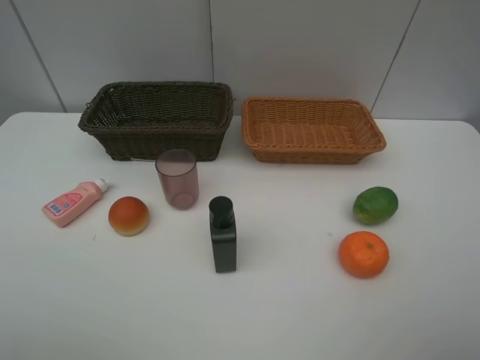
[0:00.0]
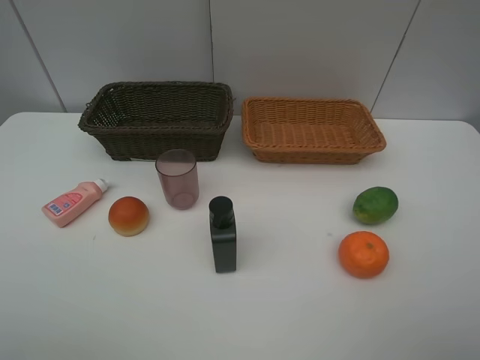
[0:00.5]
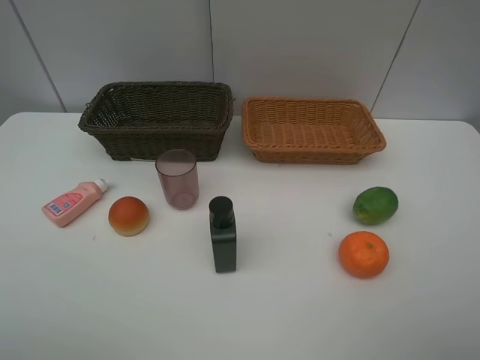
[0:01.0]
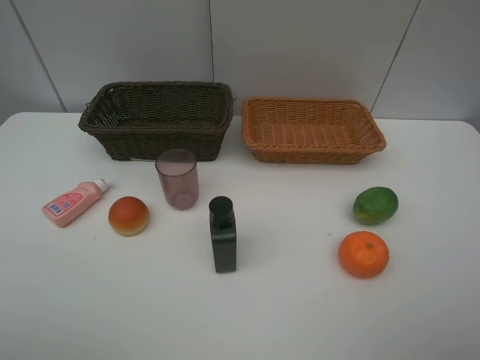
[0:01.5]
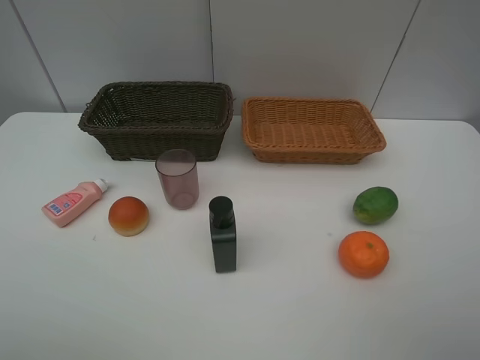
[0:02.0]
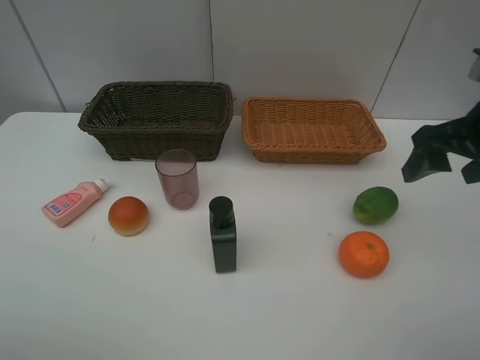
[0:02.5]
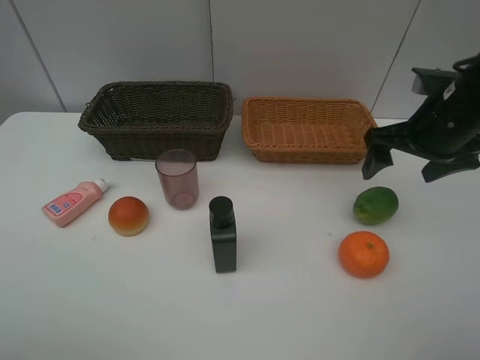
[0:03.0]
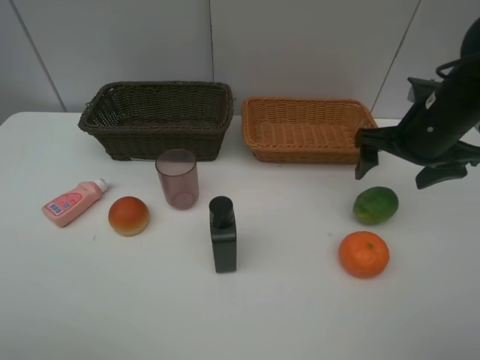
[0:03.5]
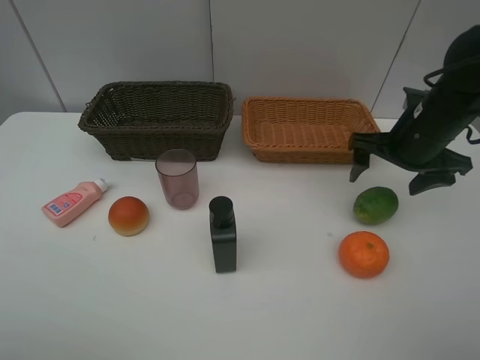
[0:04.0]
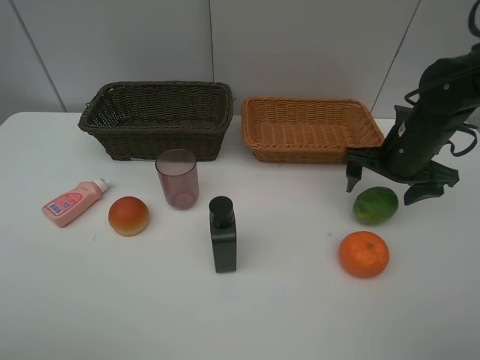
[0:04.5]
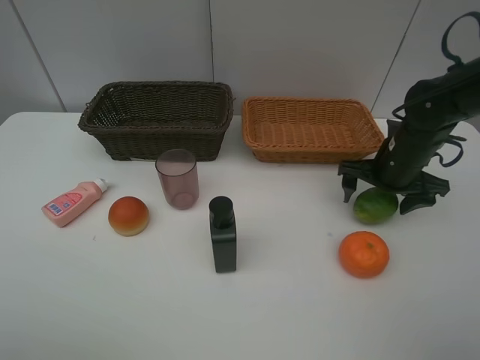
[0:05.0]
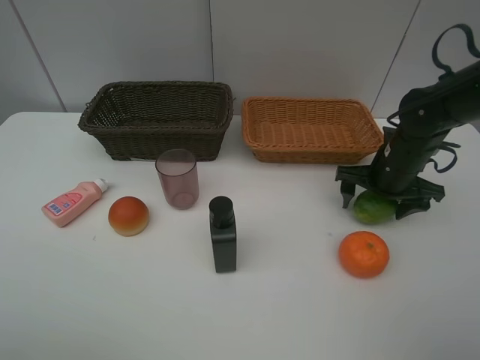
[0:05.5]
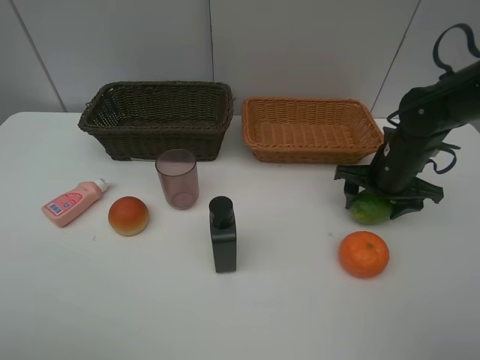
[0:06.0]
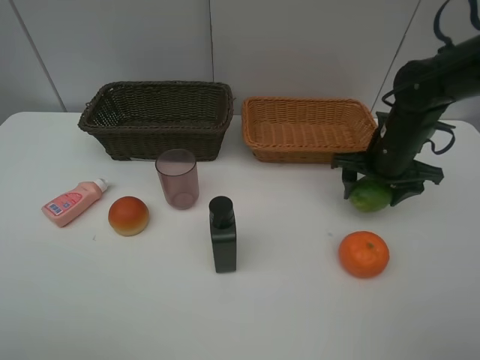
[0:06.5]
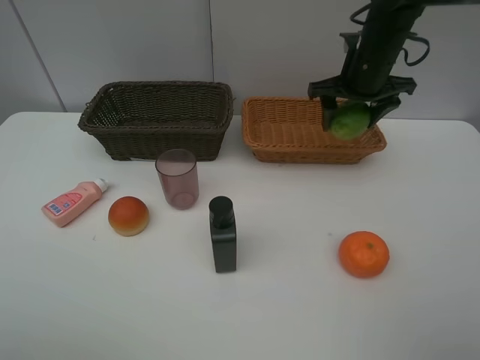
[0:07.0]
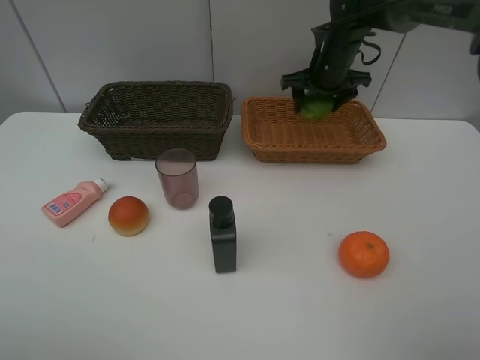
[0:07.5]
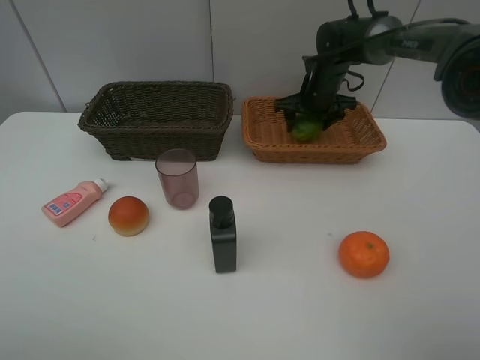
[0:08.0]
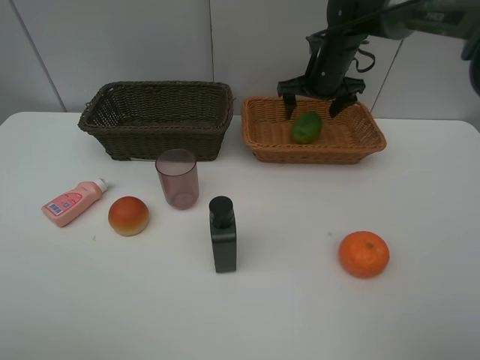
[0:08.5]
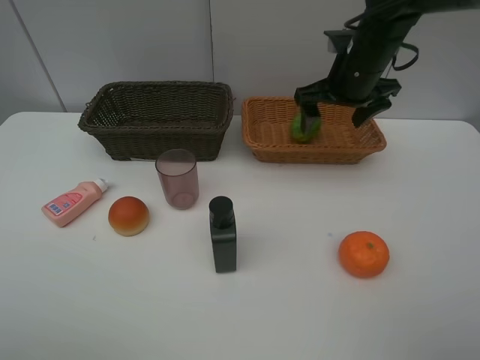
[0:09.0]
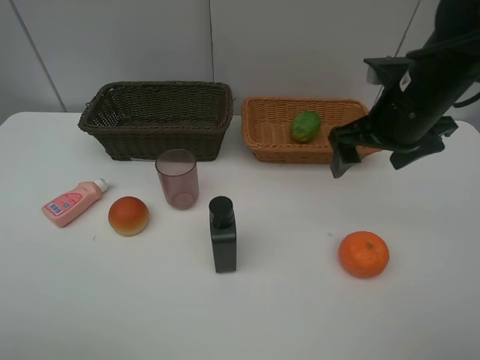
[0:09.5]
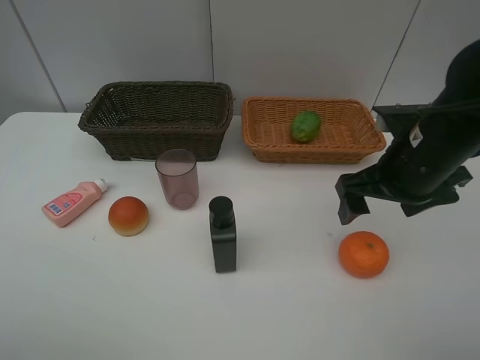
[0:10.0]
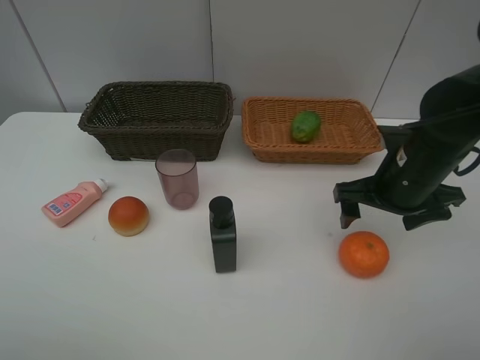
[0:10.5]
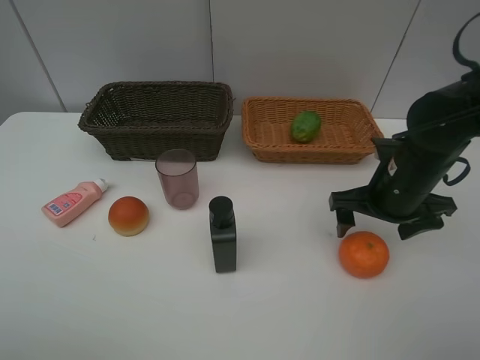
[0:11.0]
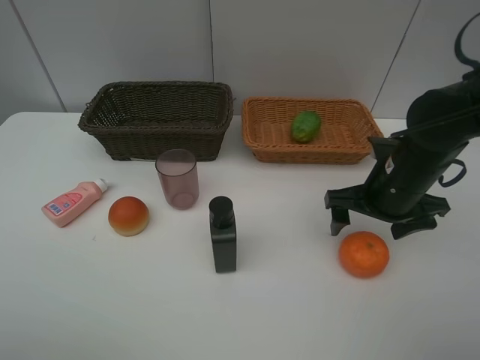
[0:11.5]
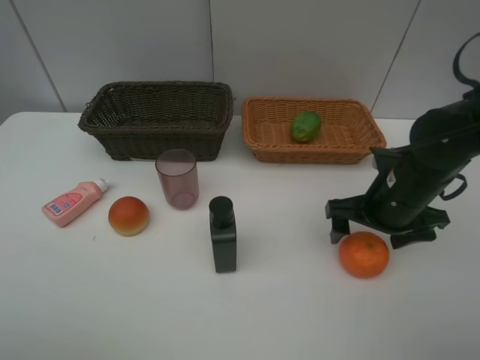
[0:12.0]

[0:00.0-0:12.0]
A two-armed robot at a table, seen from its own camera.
Task of the whole recording: place multiple objects separately in different baskets.
0:02.0 to 0:04.0: The right gripper goes some 25 cm forward and downward.
0:04.0 to 0:06.0: The right gripper shifts approximately 5 cm downward, and closes.
0:06.0 to 0:08.0: The right gripper goes approximately 20 cm forward and to the left.
0:08.0 to 0:10.0: The right gripper moves backward, some 25 cm, and opens its fingers.
0:10.0 to 0:12.0: The right gripper heads downward, covering about 5 cm.

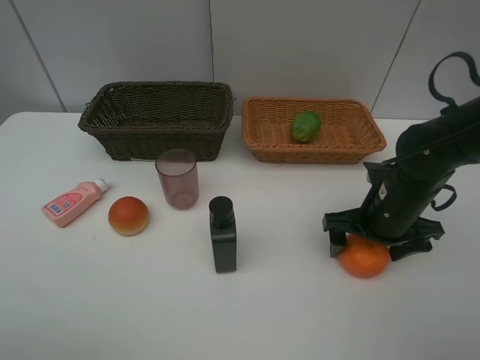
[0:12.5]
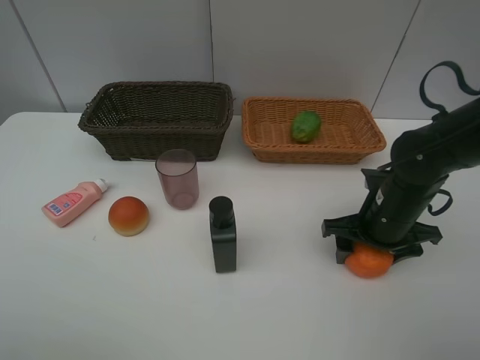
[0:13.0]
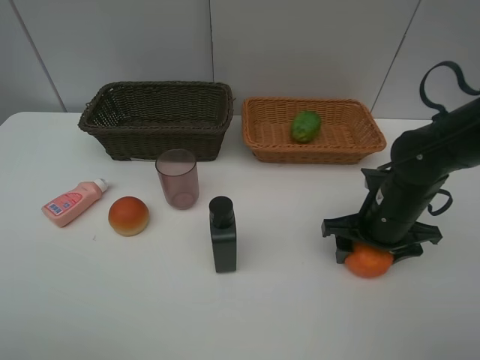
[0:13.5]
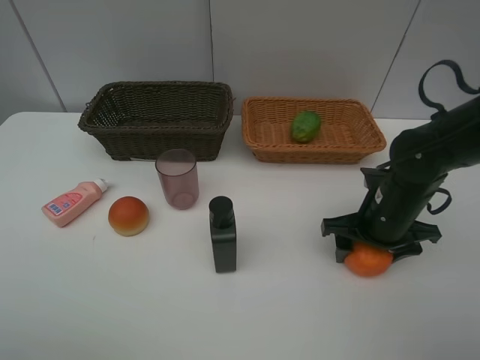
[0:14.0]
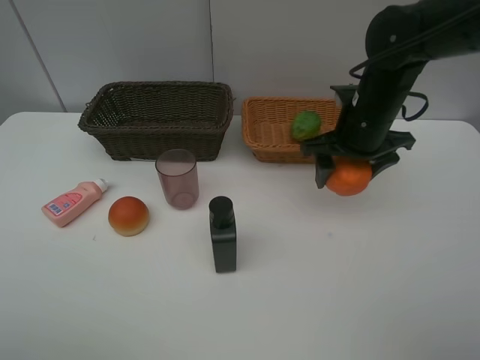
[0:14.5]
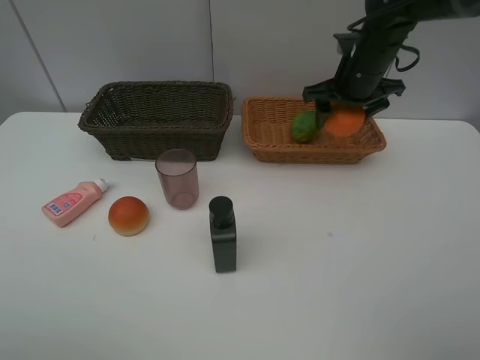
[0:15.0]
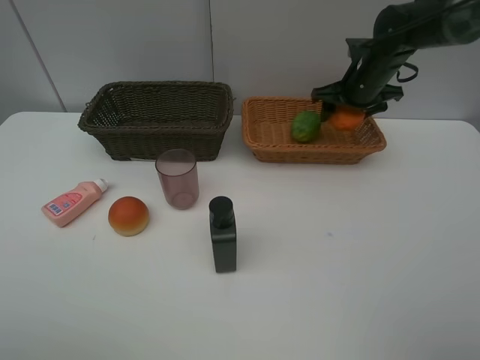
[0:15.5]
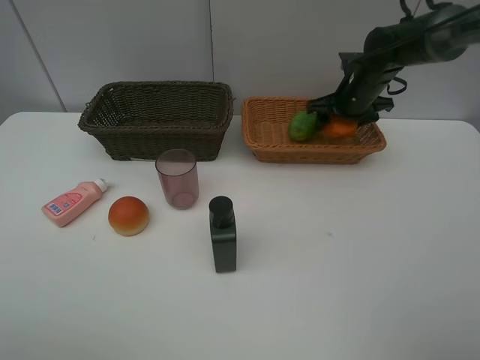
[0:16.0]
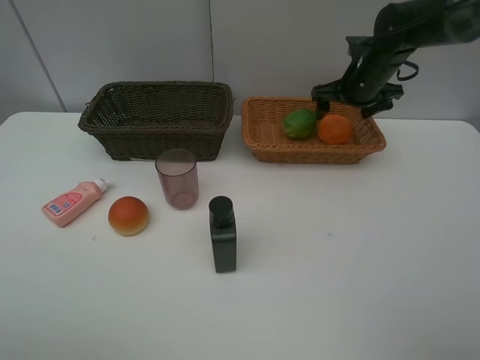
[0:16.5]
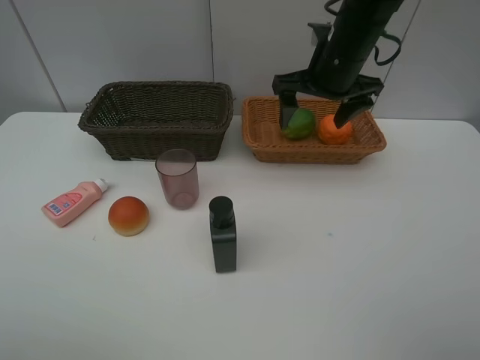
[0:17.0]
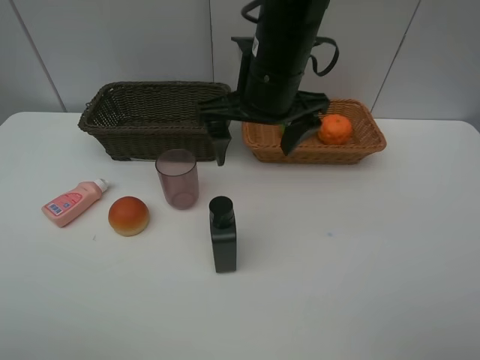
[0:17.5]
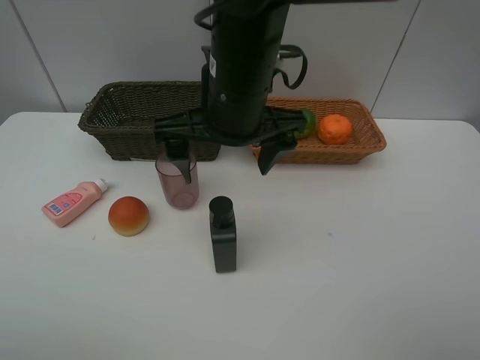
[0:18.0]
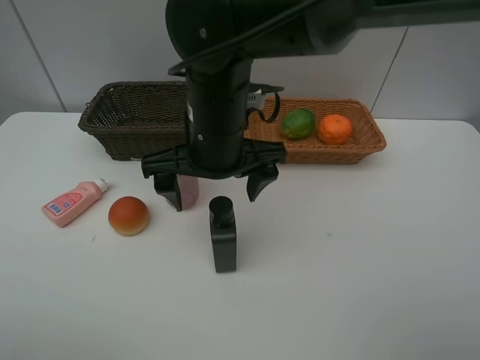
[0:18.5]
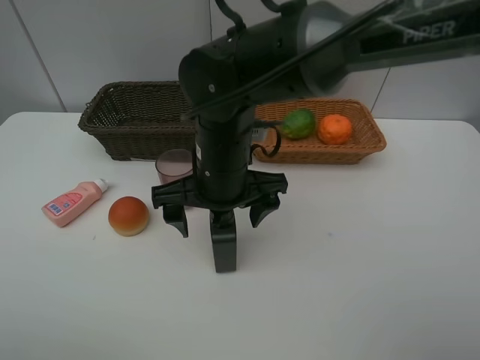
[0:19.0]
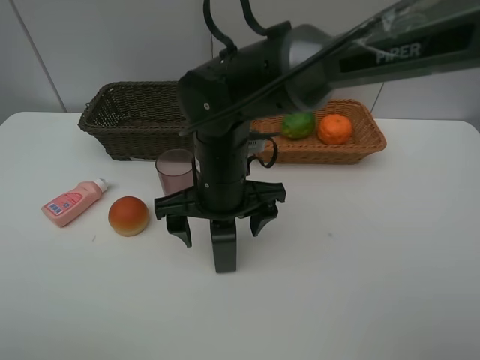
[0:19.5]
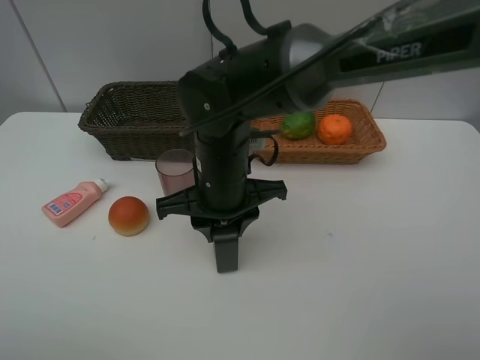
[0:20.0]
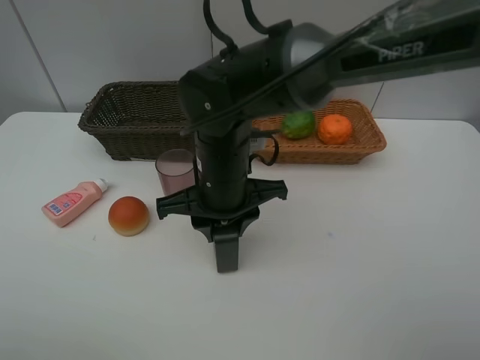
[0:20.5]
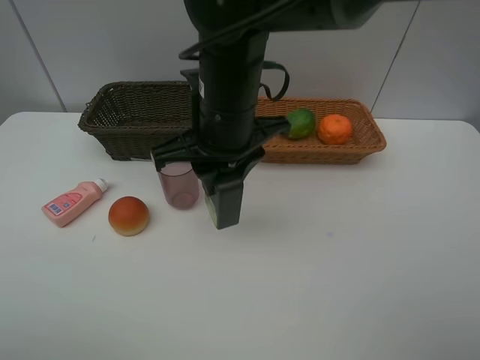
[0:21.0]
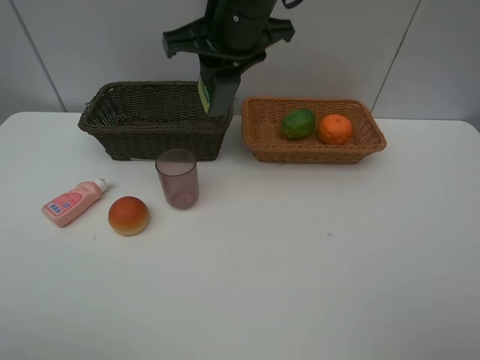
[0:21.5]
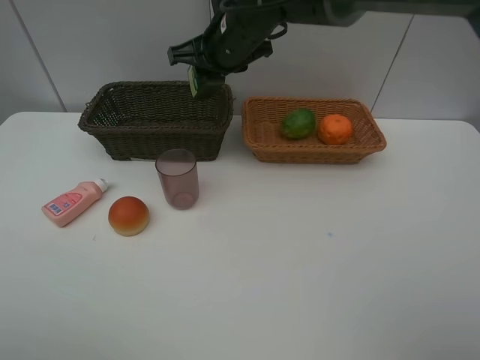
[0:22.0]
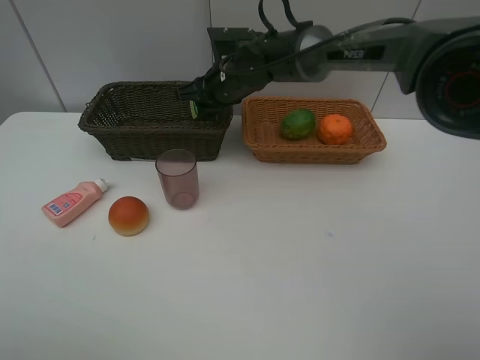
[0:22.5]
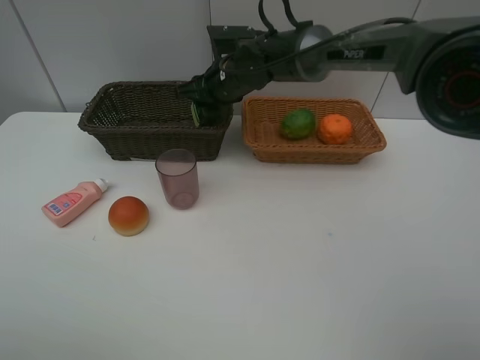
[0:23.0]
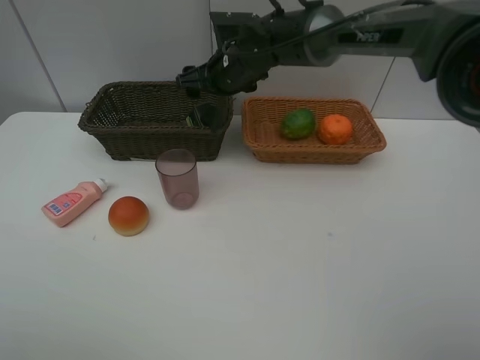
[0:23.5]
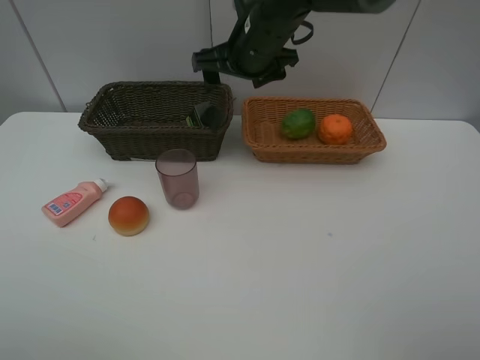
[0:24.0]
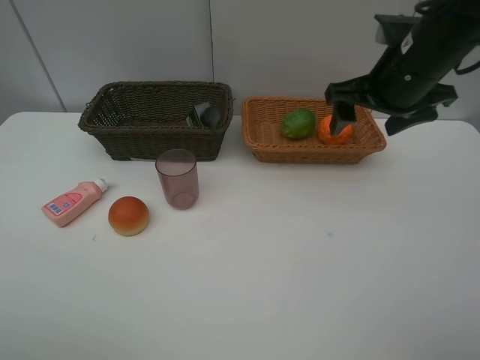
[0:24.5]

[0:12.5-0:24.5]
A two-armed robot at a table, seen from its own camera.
Task of the whole recording: place multiple objects separately in different baskets.
0:12.5 to 0:14.5: The right gripper moves forward and upward, roughly 15 cm, and closes.
0:14.5 to 0:16.5: The right gripper heads forward, covering roughly 10 cm, and opens.
0:16.5 to 0:18.5: The right gripper travels to the left and backward by approximately 30 cm.
0:18.5 to 0:20.5: The right gripper shifts about 5 cm downward, and closes.
0:20.5 to 0:22.5: The right gripper goes some 20 cm forward.
0:22.5 to 0:24.5: The right gripper goes approximately 30 cm to the right, backward and upward, and opens.

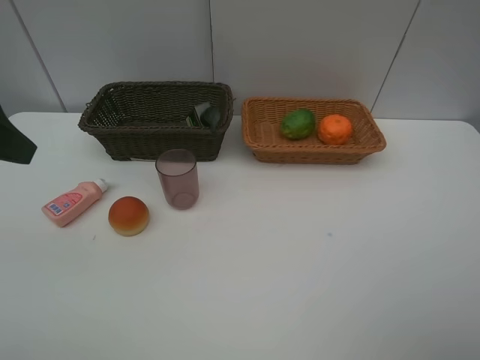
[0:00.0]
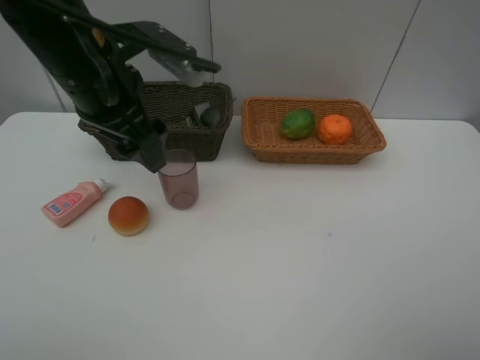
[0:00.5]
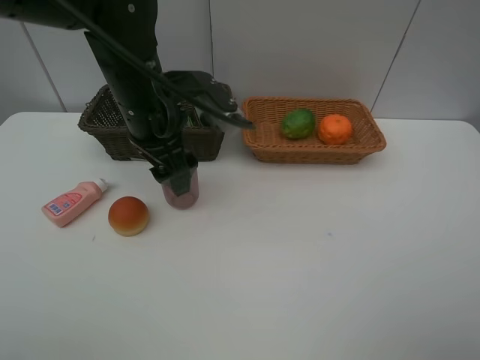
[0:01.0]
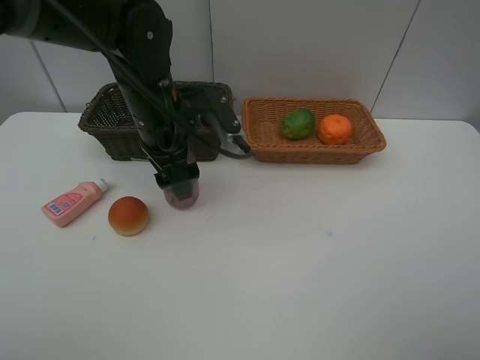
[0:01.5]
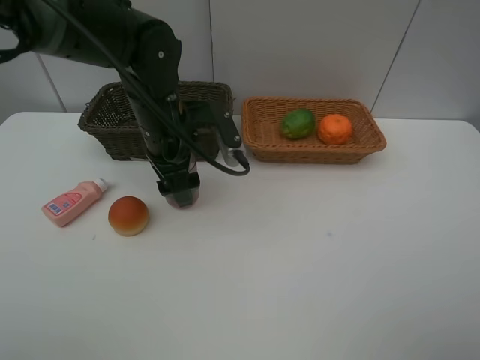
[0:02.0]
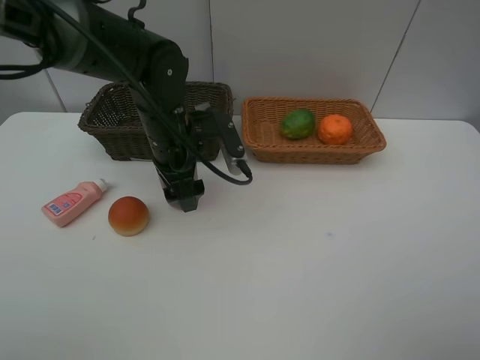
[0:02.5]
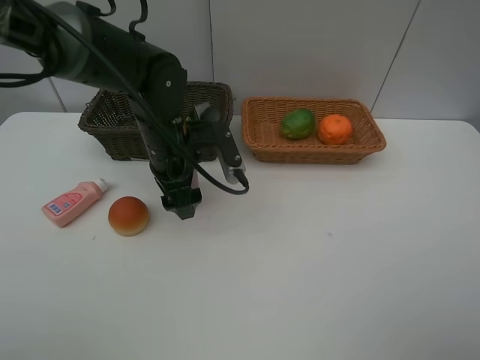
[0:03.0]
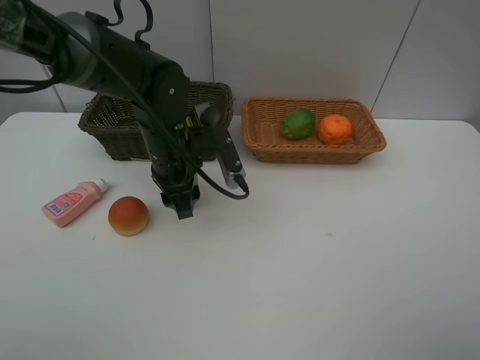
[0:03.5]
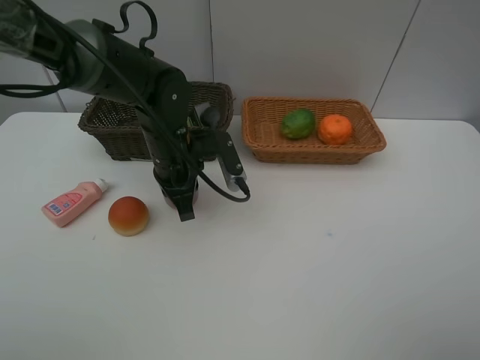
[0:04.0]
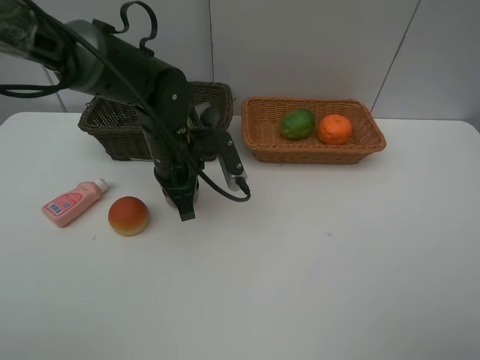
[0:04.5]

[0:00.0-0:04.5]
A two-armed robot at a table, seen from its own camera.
Task of the whole recording: place multiple objects separately in different baskets.
0:00.0 to 0:02.0: The left gripper travels to the right, downward and forward by about 25 cm.
0:02.0 to 0:04.5: The left gripper closes its fingers.
